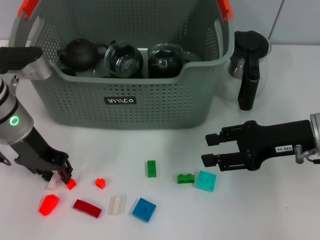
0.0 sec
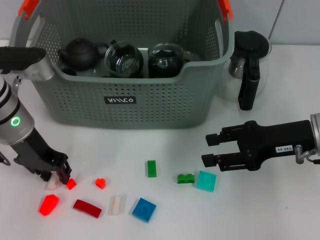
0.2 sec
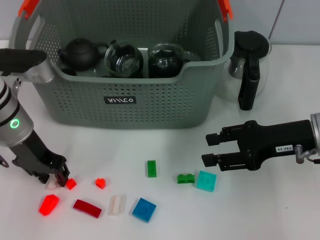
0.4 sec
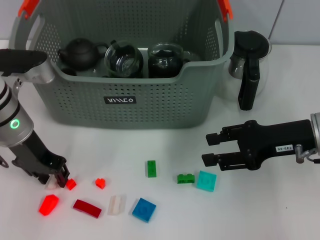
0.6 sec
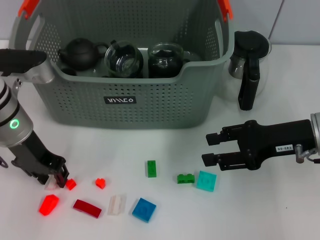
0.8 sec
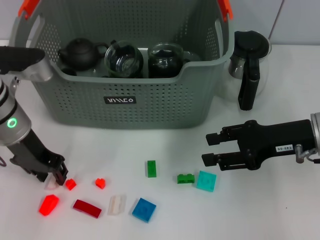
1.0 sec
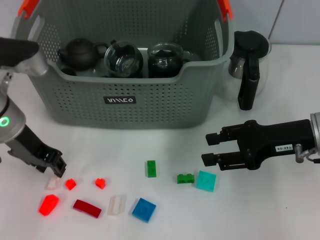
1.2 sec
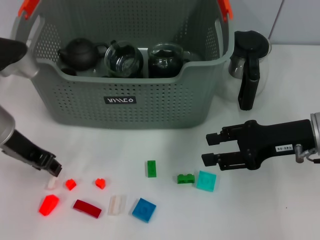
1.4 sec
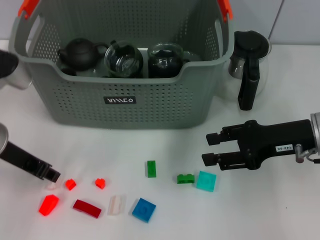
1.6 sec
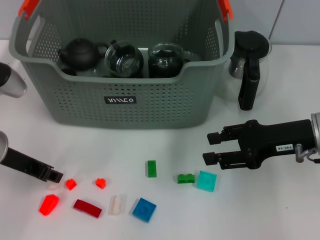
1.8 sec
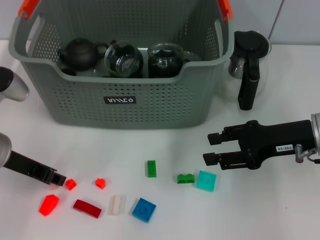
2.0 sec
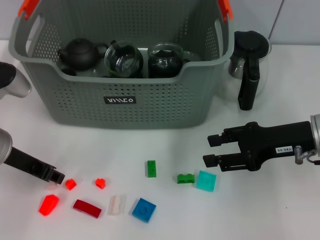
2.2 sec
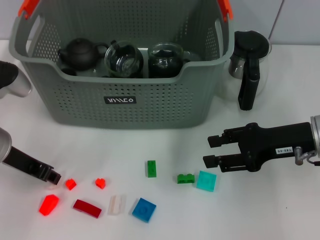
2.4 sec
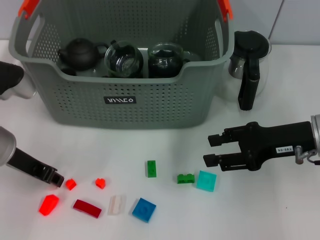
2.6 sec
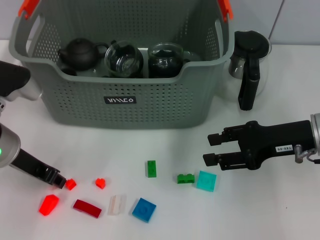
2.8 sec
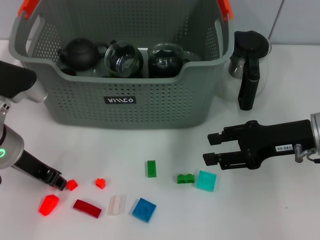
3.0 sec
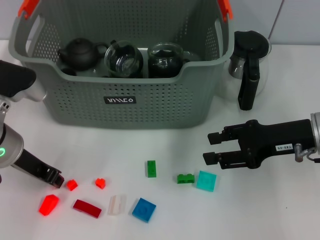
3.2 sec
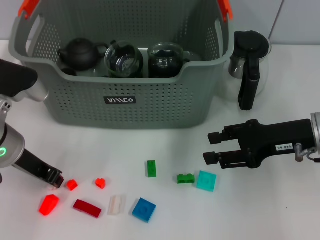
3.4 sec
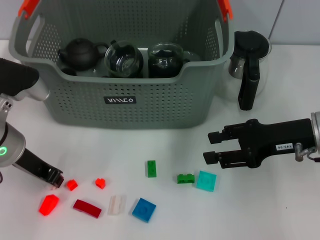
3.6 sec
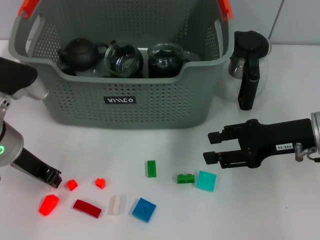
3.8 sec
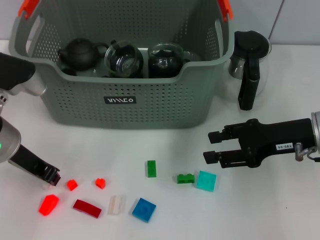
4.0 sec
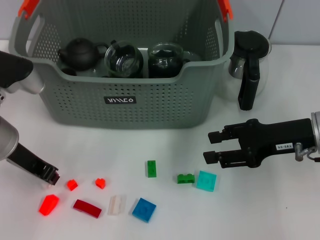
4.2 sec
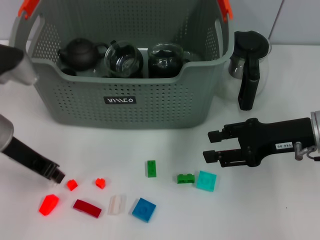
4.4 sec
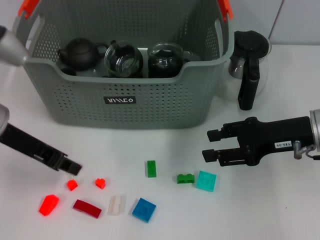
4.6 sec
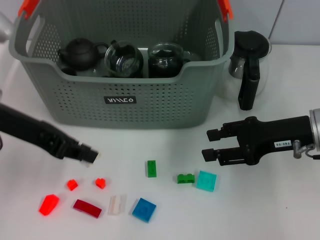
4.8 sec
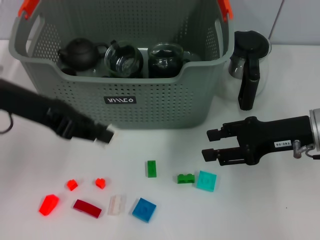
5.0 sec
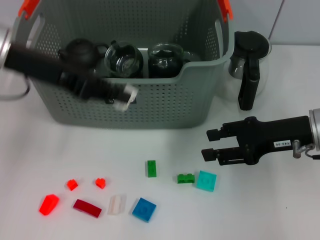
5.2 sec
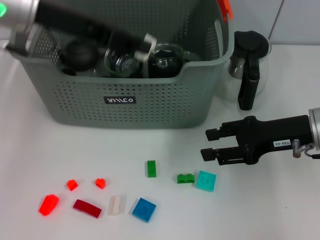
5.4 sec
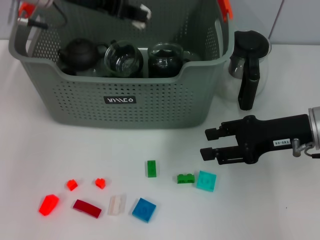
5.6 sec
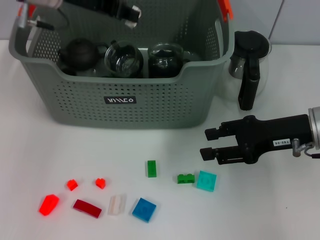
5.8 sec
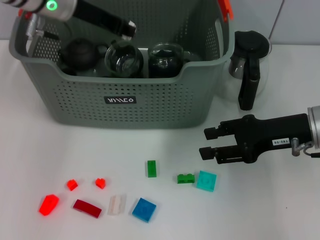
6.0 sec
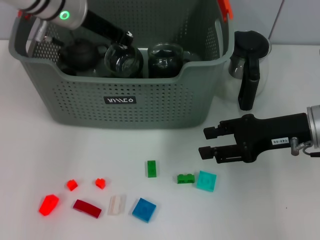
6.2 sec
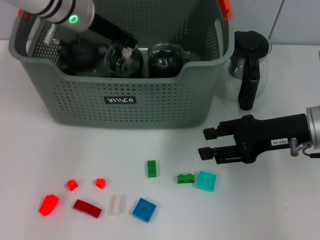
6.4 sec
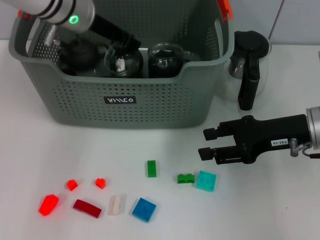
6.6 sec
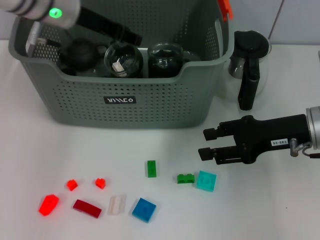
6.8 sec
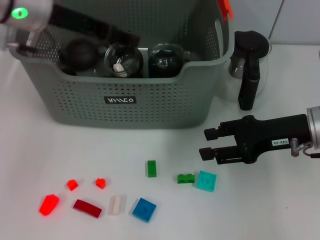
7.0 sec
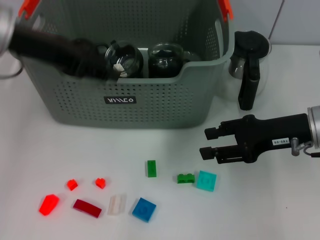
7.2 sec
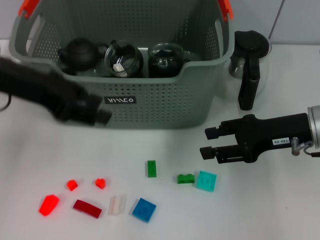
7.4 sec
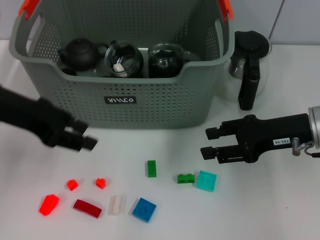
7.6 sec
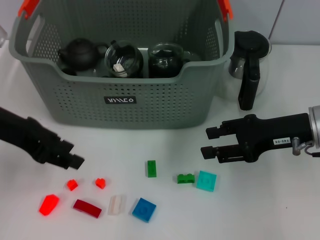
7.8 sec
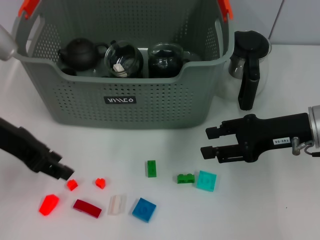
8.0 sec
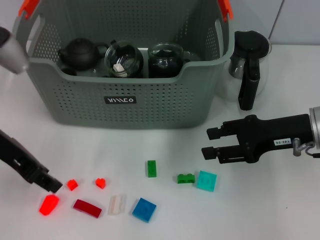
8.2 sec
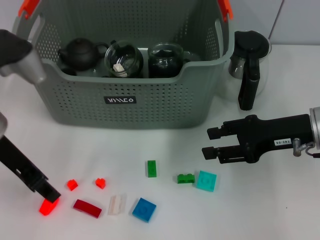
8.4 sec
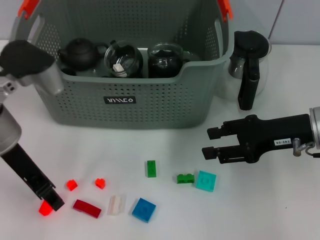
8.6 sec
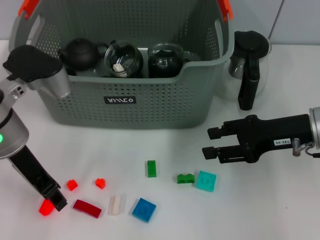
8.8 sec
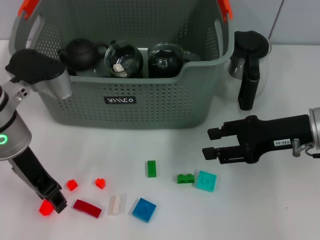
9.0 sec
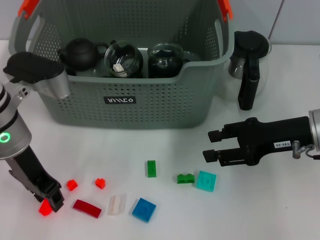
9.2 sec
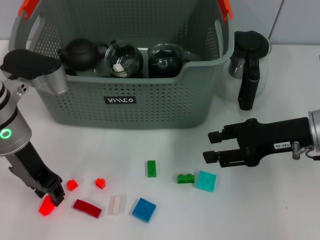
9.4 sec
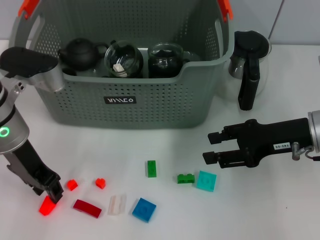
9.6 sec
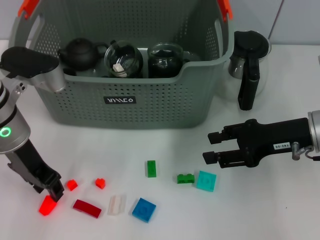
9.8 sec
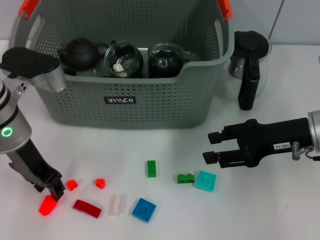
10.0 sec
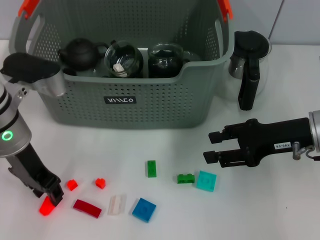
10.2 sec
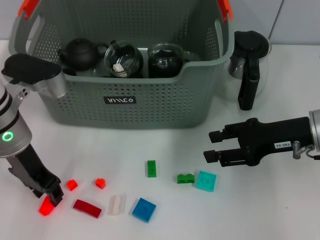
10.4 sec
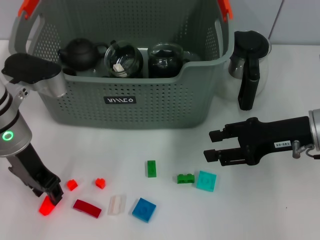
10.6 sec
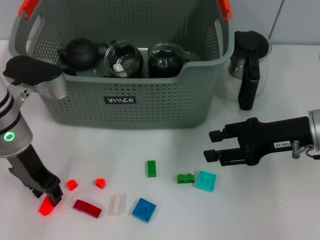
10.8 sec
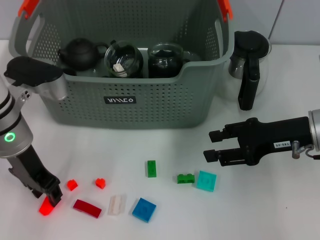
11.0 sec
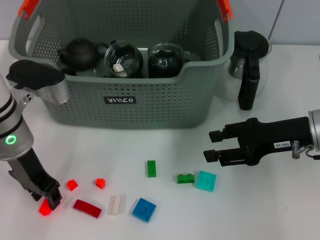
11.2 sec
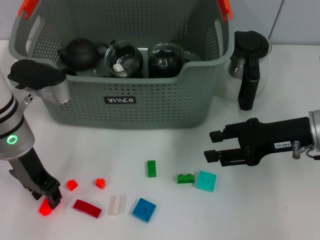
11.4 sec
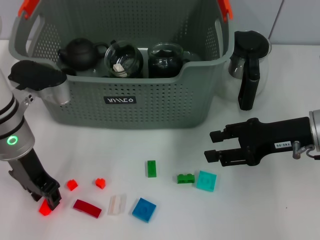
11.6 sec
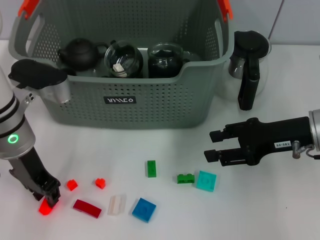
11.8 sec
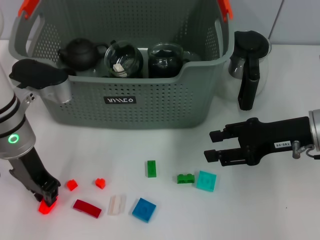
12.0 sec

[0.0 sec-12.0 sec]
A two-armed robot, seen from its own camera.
Task of the whole recording: pick up the teacup on the table and place it into the storage bin, pick up the block on the table and place it into the storage bin.
Step, 0.0 sec to 3.8 sec: Grasp the white block with left gripper.
Step, 4.0 sec to 6.8 sec: Place the white block in the storage box with left gripper.
0.0 sec to 1.6 sec: The left gripper moves backward, roughly 5 cm.
1.6 sec to 4.4 sec: The grippers move only a little.
4.4 sec to 6.0 sec: The left gripper travels forward, upward and to the right by some 15 cm.
6.0 sec to 7.6 sec: The left gripper moves backward and to the left, about 15 cm.
7.6 sec to 9.0 sec: The left gripper is displaced to the right by about 5 cm.
9.0 sec to 10.4 sec: The grippers move only a little.
10.4 sec to 12.0 sec: Both grippers stay about where they are.

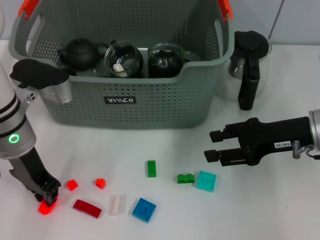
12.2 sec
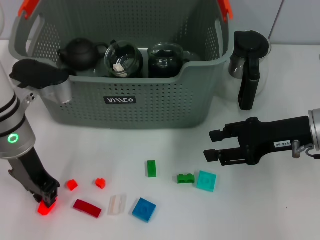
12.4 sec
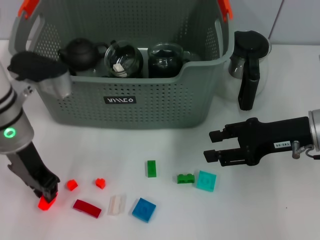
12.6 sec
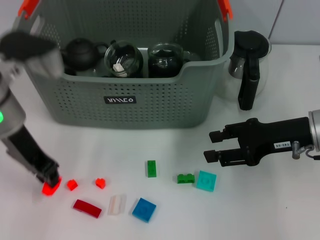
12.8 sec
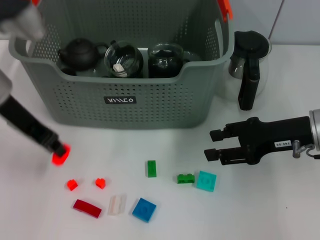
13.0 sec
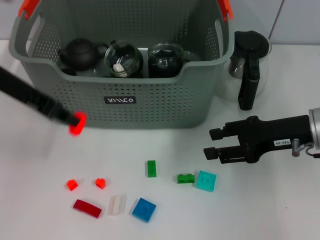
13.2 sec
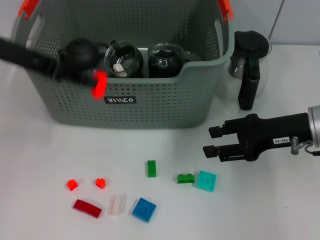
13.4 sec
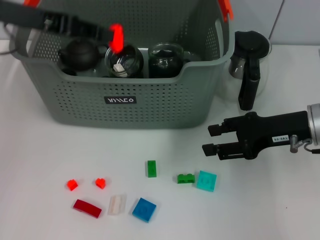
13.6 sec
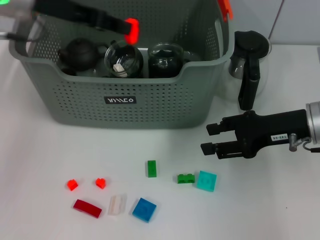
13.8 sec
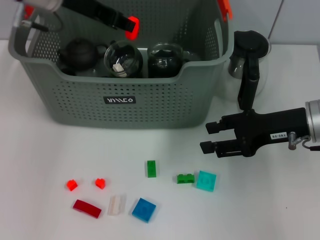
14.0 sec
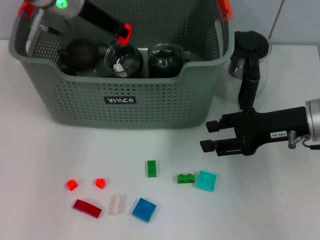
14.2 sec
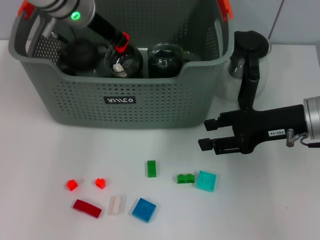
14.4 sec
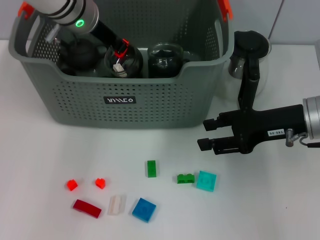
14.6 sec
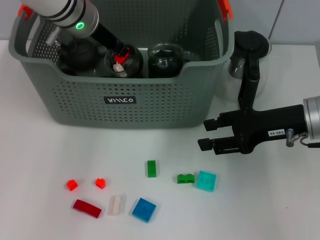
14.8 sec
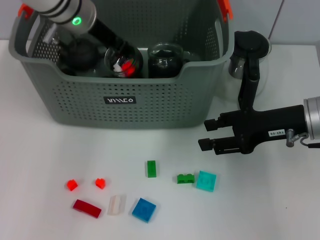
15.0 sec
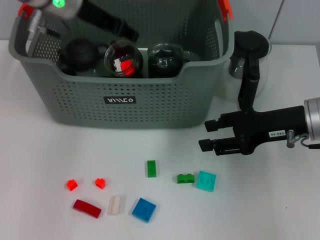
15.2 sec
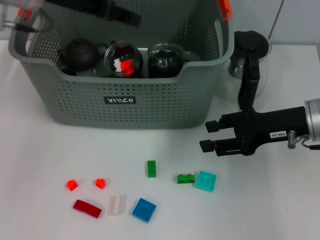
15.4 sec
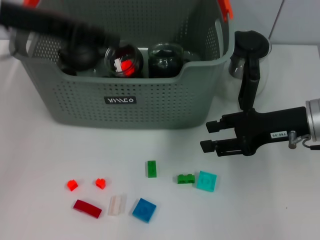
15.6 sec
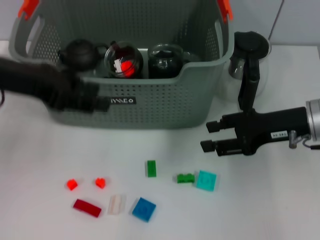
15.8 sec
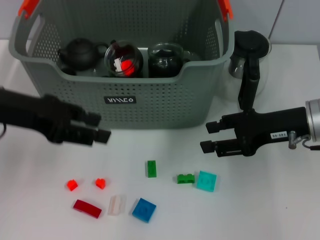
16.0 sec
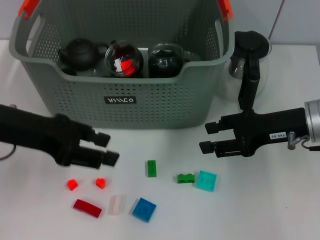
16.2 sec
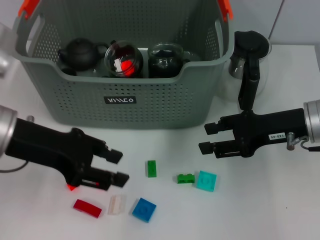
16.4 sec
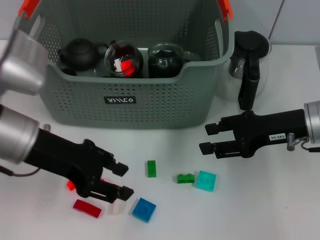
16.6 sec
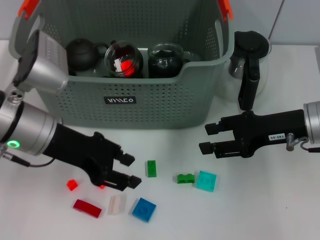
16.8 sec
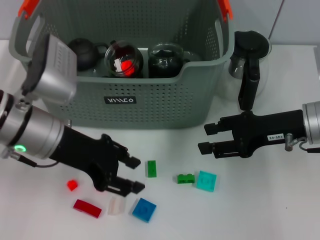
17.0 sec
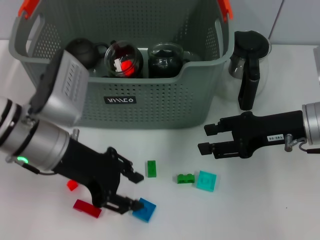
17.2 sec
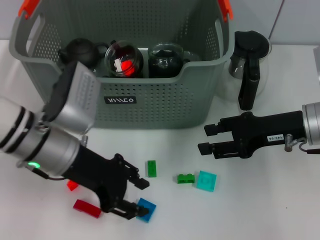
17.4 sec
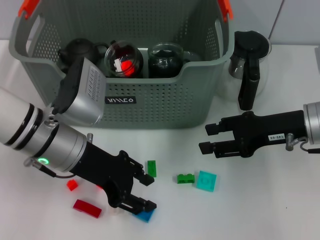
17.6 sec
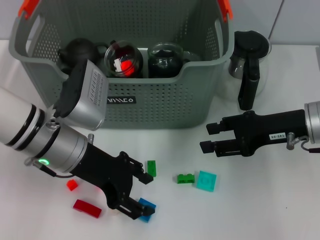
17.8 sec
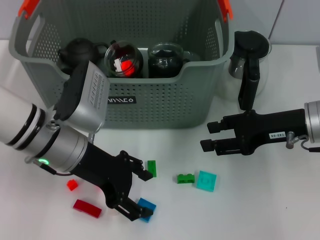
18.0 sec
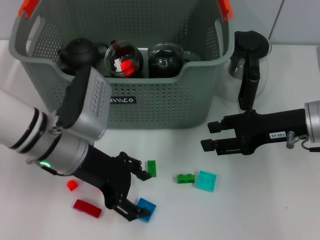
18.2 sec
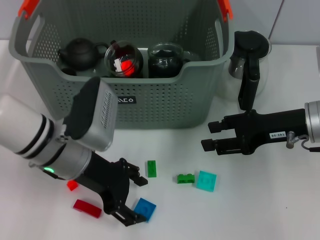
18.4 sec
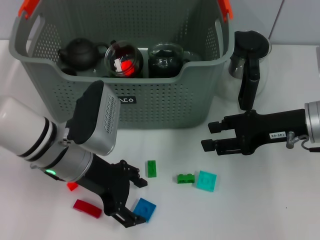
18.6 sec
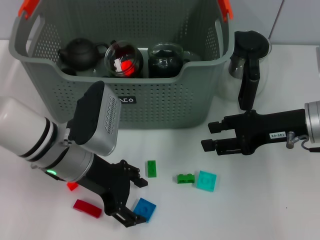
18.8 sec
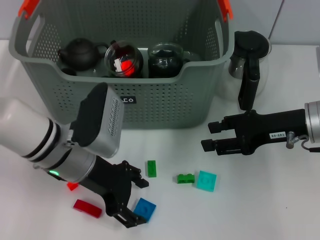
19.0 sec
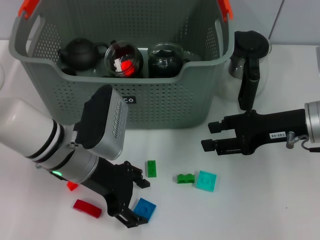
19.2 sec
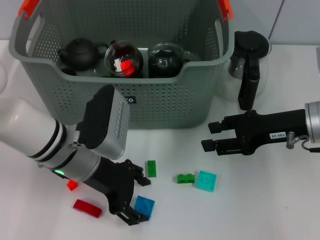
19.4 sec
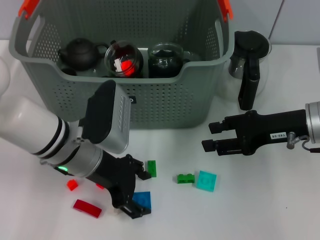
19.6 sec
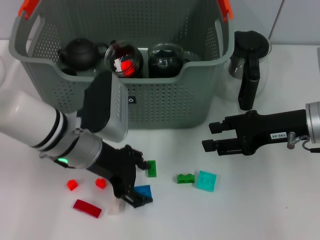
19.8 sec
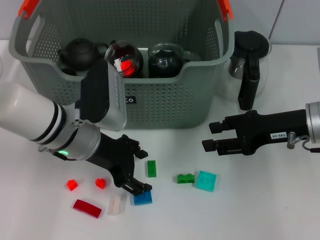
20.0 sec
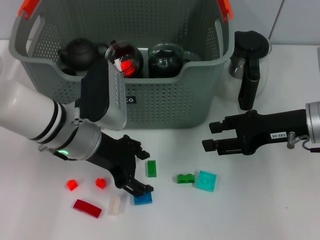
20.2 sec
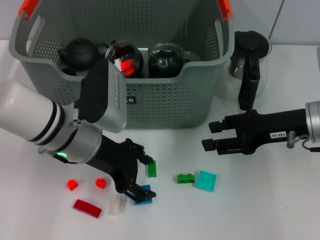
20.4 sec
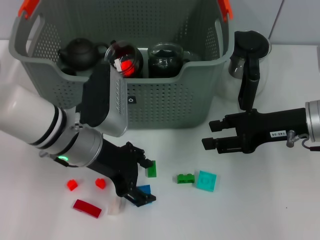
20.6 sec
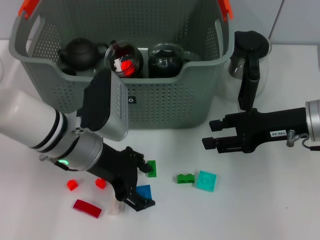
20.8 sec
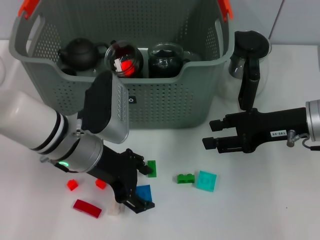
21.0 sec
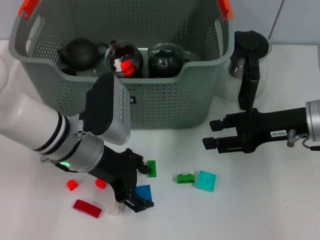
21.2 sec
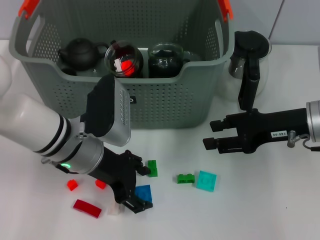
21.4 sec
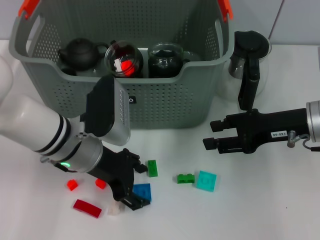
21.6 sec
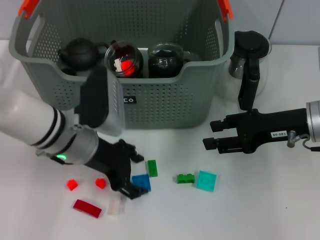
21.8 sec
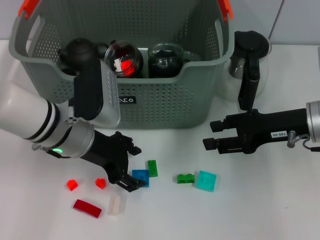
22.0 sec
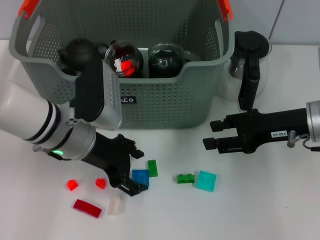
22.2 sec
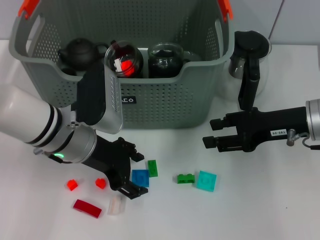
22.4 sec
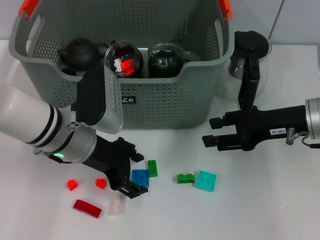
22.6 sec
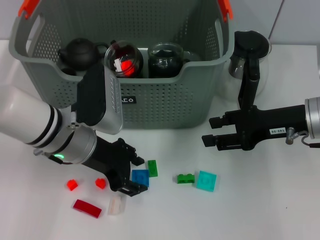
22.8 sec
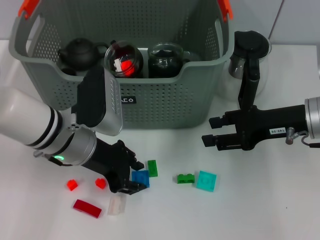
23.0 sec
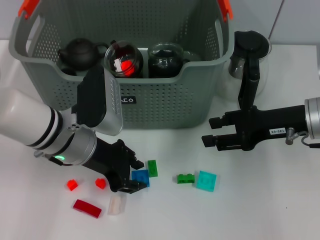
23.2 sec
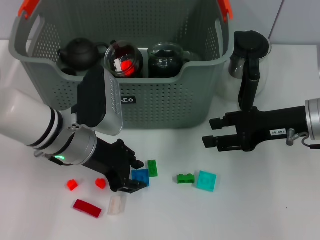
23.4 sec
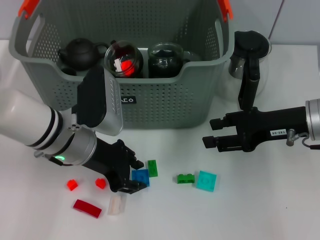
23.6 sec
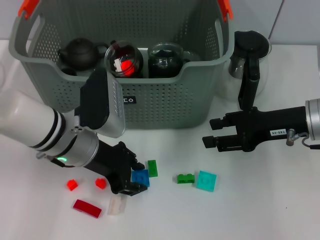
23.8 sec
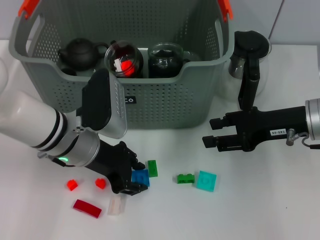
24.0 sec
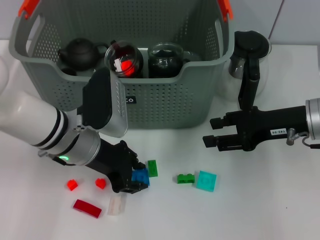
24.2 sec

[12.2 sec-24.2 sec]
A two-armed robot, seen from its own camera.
Task of the whole recording: pick up the teacup on the table and place it into the storage bin, pick up the block on the table and place it into the storage bin.
Step, 12.4 sec to 15.2 sec: Place the orange block in the storage box with left gripper.
12.2 sec to 13.8 sec: The left gripper shifts about 15 cm upward and forward.
13.8 sec to 15.2 sec: The left gripper goes approximately 5 cm to the right.
15.2 sec to 16.6 sec: The left gripper shifts roughly 15 cm backward and downward.
16.6 sec to 18.2 sec: The left gripper travels downward by roughly 5 cm.
18.2 sec to 19.8 sec: The grippers make only small movements.
19.8 sec to 21.2 sec: The two grippers keep their place.
21.2 sec to 22.6 sec: The grippers make only small movements.
22.6 sec to 24.2 sec: The two grippers keep their place.
